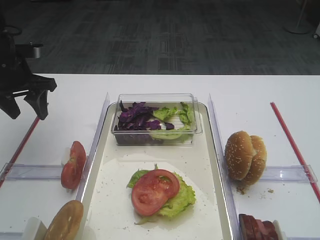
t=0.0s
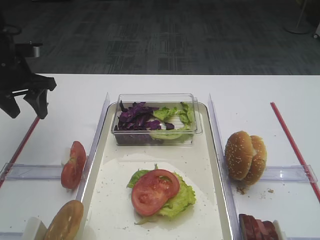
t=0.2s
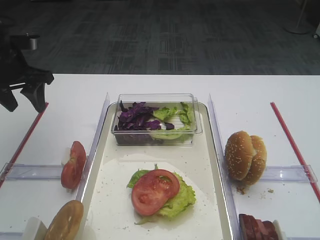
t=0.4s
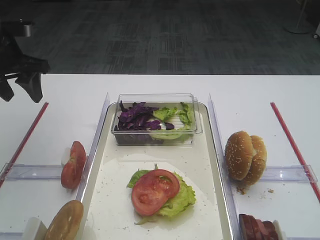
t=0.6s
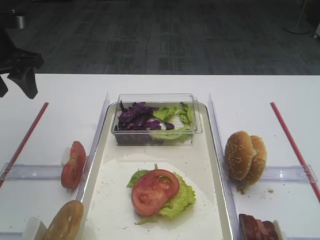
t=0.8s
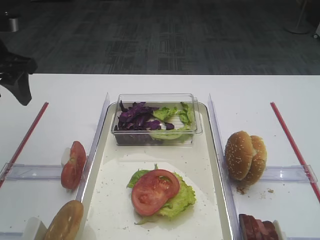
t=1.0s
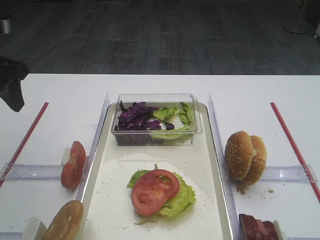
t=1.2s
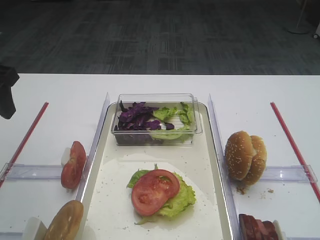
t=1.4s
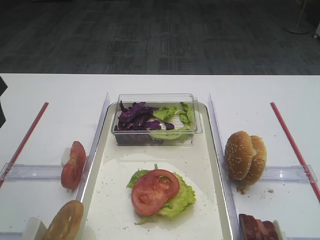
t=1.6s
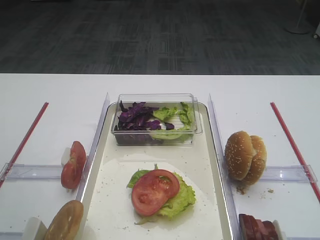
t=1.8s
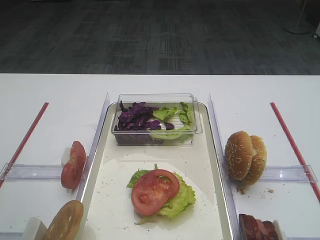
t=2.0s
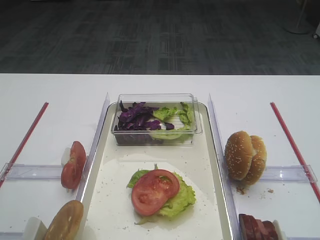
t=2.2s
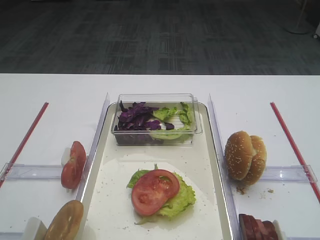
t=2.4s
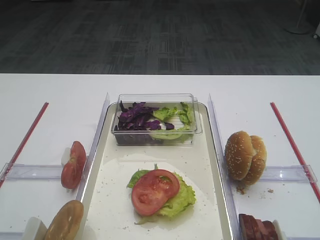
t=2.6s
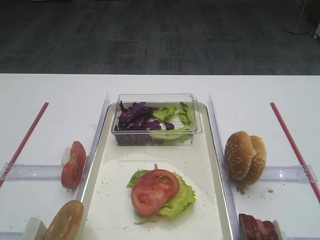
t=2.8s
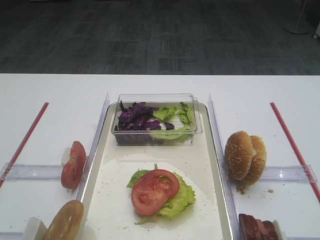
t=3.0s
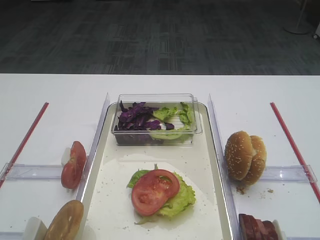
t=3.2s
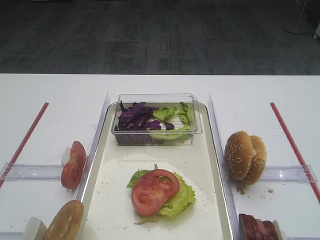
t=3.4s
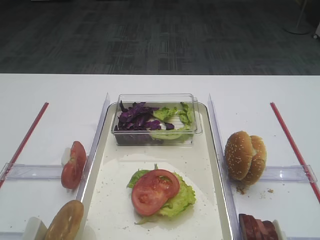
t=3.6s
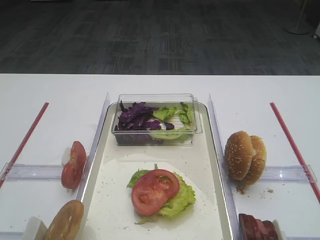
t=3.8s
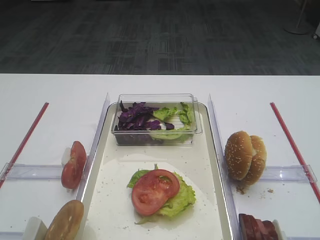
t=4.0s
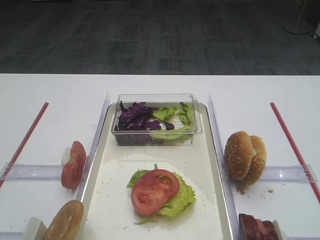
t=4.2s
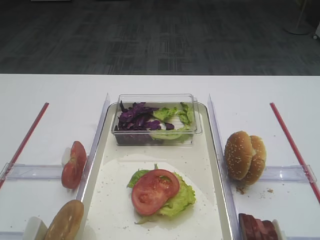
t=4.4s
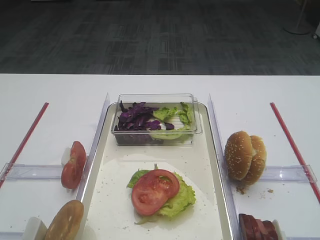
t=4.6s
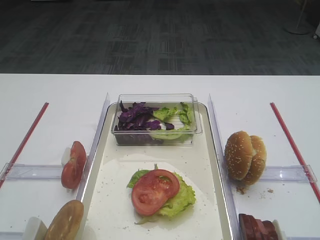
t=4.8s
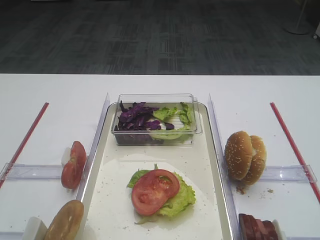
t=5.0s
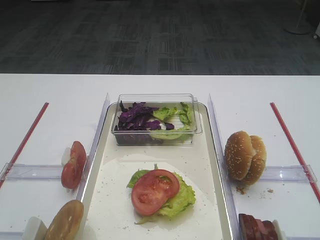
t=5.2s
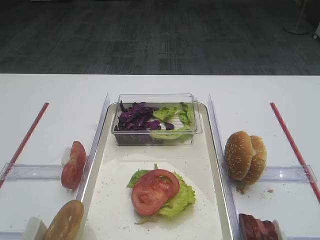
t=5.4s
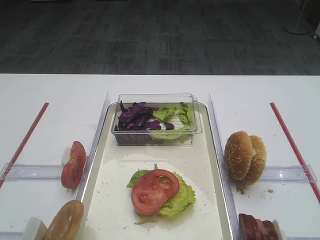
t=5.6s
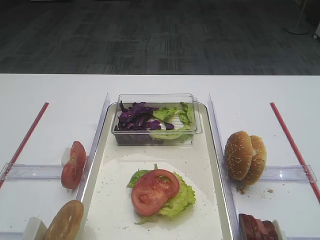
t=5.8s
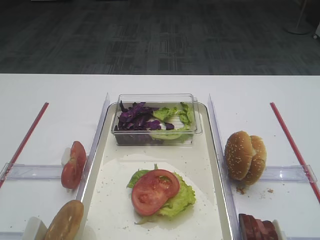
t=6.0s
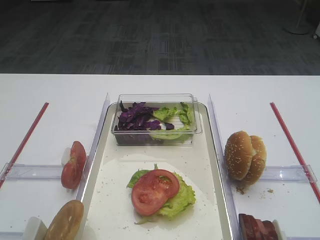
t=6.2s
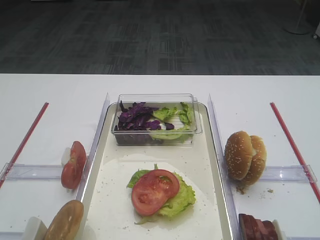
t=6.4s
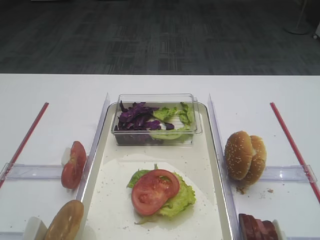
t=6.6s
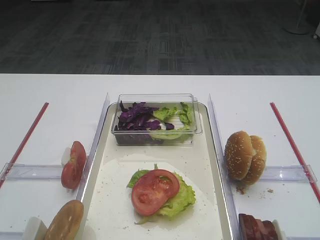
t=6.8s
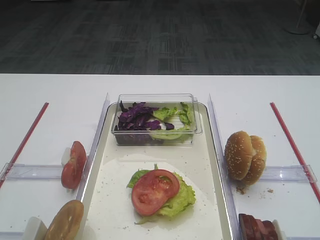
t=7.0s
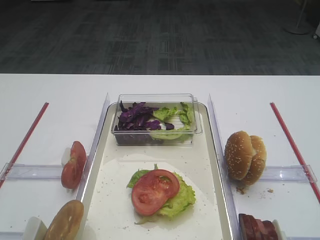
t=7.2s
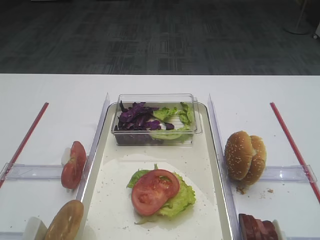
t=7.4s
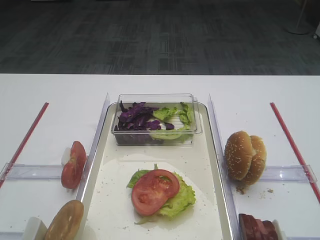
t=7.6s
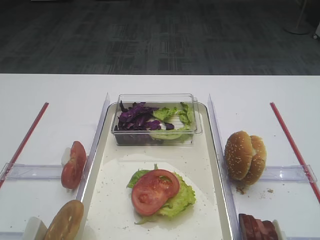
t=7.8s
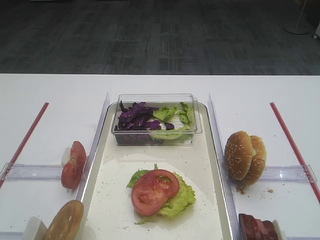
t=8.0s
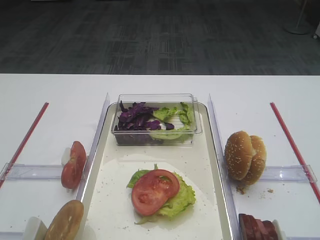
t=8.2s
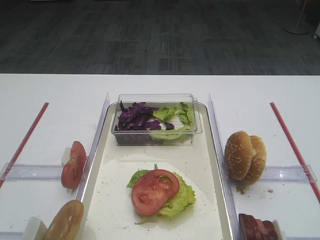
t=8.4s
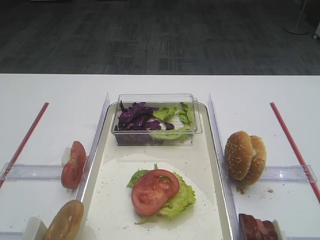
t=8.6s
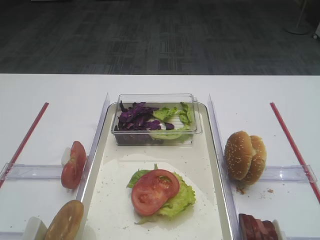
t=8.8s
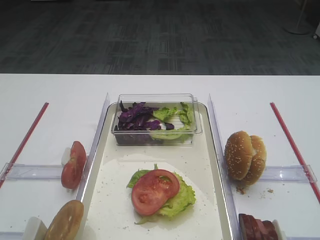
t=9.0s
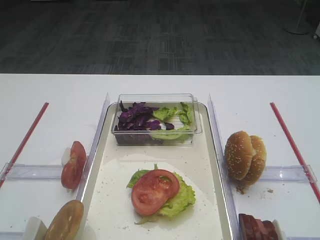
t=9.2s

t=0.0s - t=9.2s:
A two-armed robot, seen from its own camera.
t=0.0s - t=1.6s: The left gripper is displaced backward and upward by approximately 15 cm.
t=4.6s - t=9.2s: The two grippers keep their place.

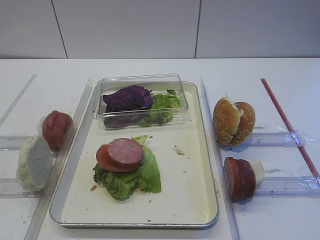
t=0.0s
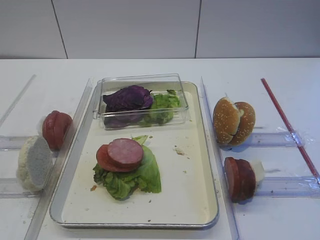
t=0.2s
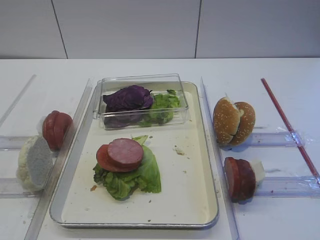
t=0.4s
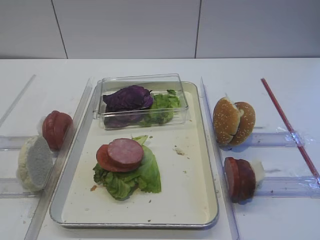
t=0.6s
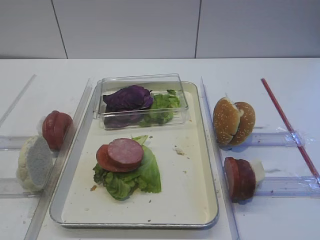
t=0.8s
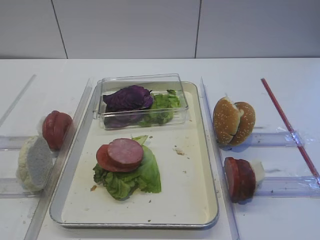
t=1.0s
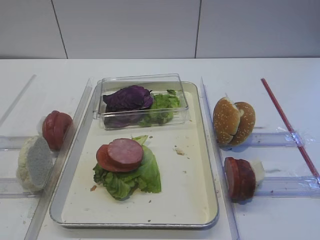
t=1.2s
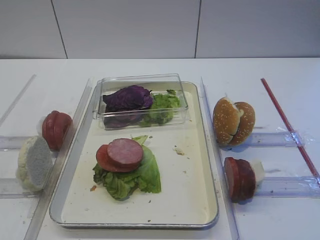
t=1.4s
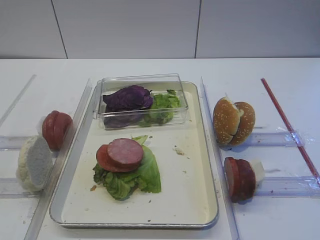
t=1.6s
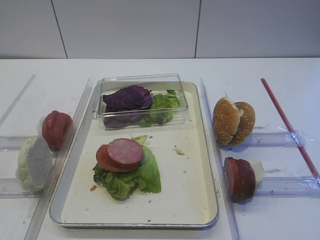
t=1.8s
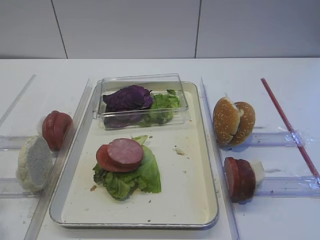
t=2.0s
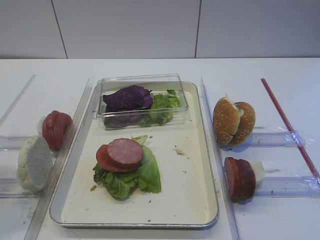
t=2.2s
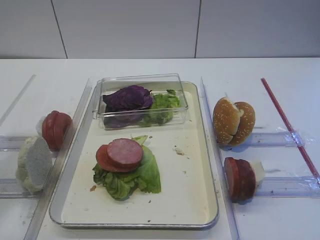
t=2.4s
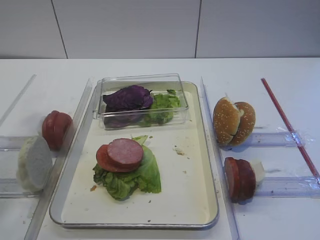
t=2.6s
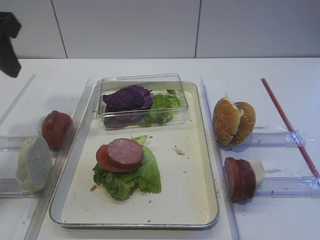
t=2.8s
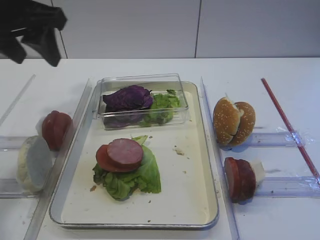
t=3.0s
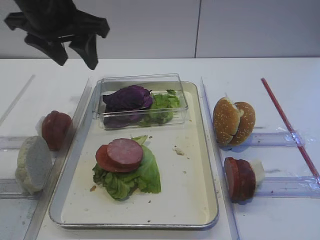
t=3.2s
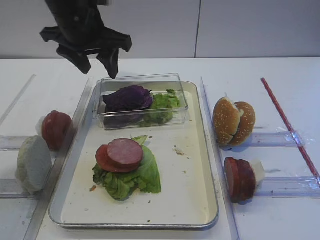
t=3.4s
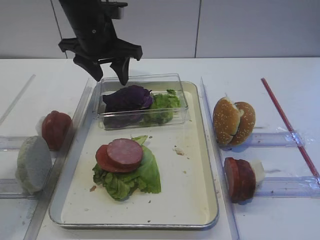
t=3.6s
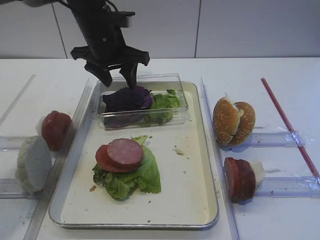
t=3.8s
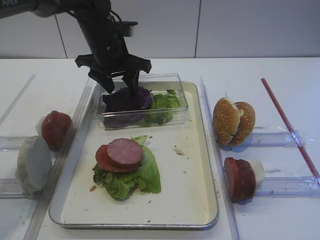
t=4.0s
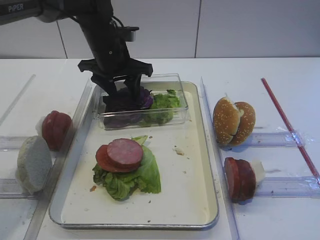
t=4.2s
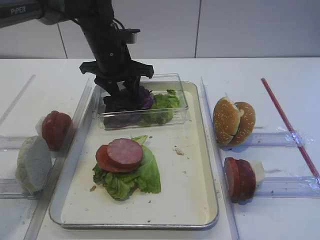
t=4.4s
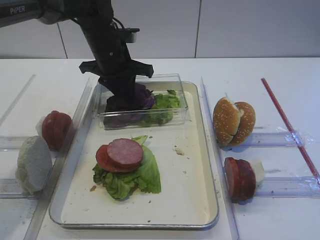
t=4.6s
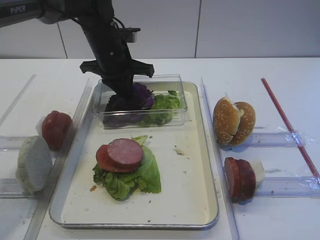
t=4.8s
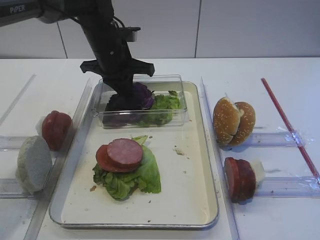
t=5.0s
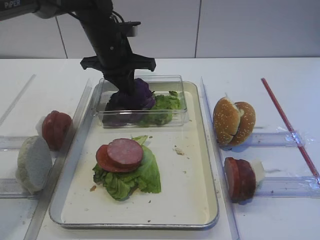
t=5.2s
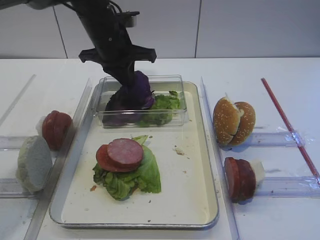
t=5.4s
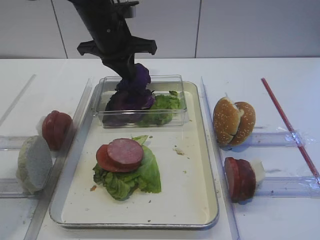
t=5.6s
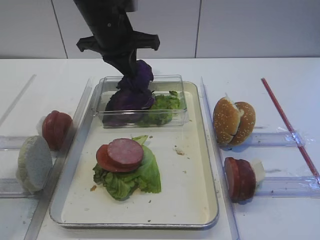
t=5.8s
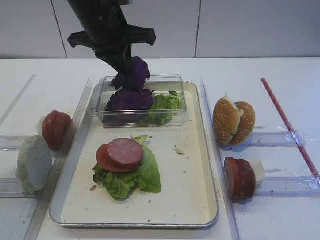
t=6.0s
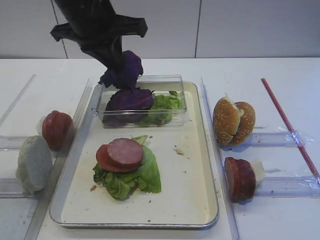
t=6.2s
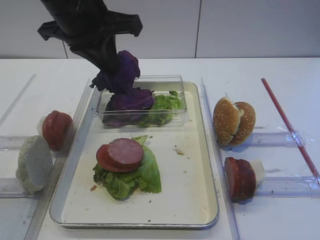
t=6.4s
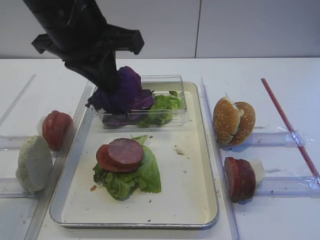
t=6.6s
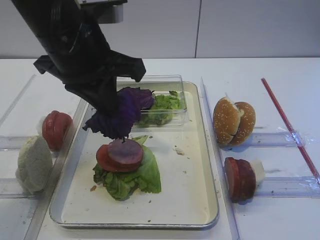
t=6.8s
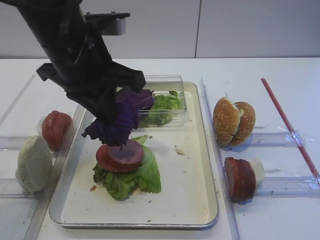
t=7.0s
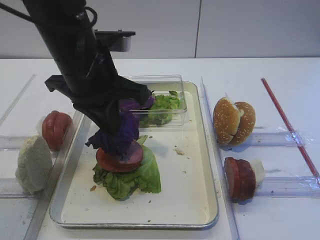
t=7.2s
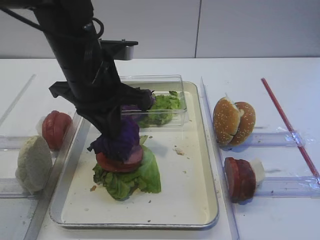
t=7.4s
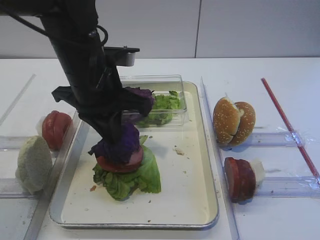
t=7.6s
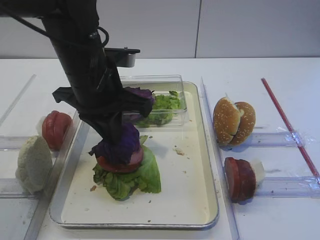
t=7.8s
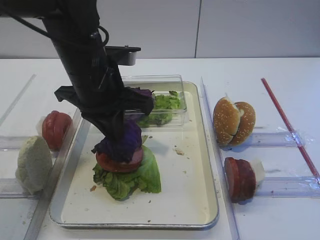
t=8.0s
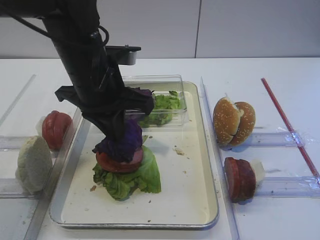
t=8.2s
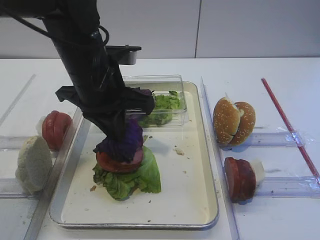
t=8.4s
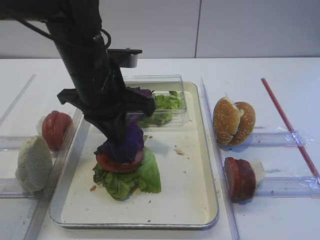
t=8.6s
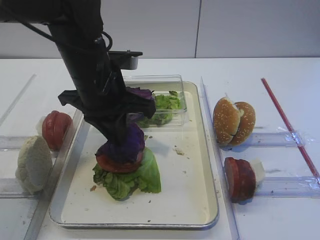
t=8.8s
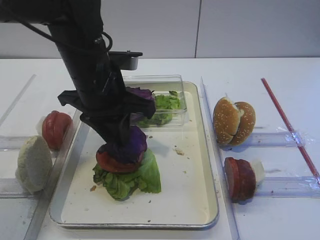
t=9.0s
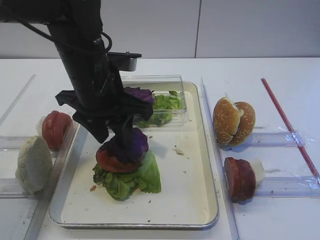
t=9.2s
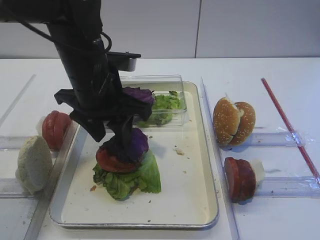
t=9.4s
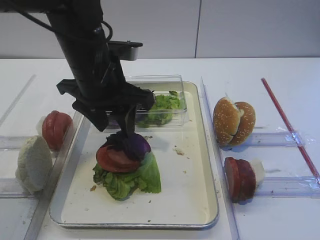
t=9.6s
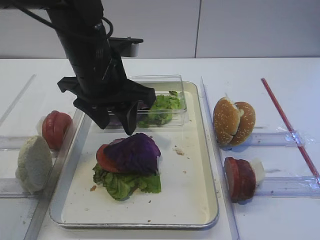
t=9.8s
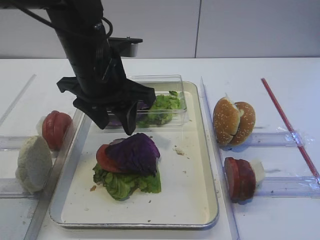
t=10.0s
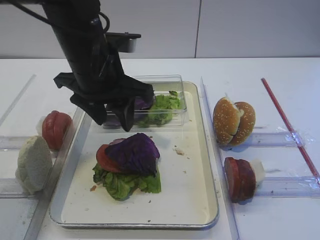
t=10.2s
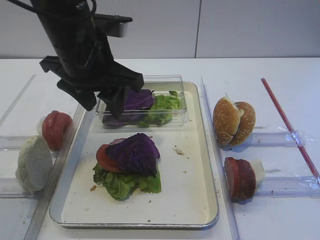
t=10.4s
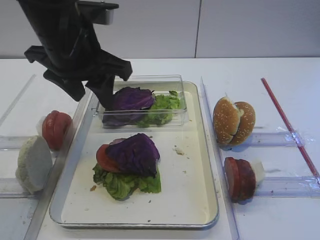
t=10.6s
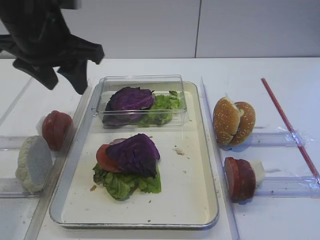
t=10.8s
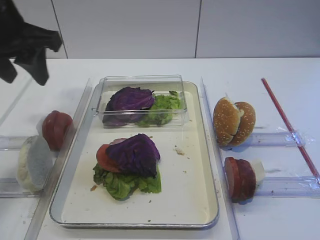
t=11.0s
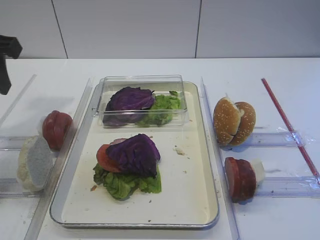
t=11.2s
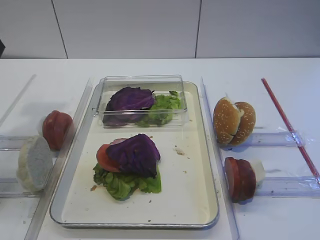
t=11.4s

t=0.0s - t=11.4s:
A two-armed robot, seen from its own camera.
Step, t=0.0s - t=6.0s: Pick up the purple cabbage with the left gripper.
Step, t=6.2s - t=10.0s: Place the purple cabbage on the cutlet with the left gripper.
t=1.4s - t=2.8s: The left gripper moves forward and upward, approximately 25 cm, and opens its fingers.
t=2.8s - t=4.2s: The left gripper heads forward, to the right and downward, covering roughly 30 cm.
t=4.2s - t=5.6s: The left gripper closes.
t=5.6s - t=7.2s: The left gripper moves backward, approximately 15 cm.
t=7.2s - t=8.6s: There are only small adjustments of the grippers.
t=8.6s - t=10.0s: The left gripper opens up.
t=10.0s - t=11.4s: The left gripper heads to the left and upward, covering about 20 cm.

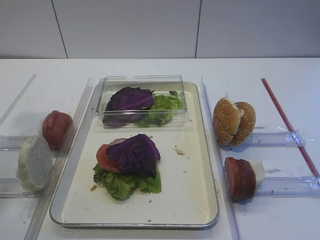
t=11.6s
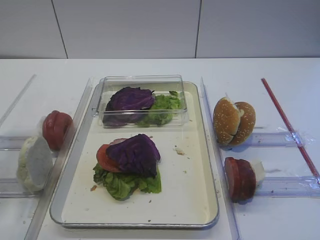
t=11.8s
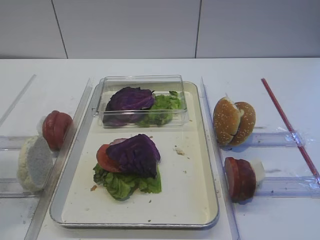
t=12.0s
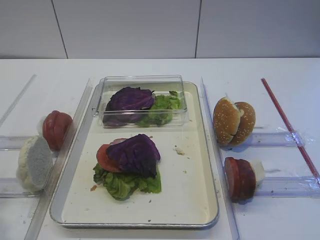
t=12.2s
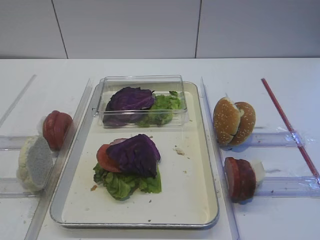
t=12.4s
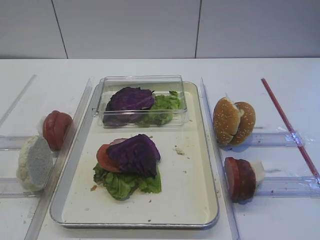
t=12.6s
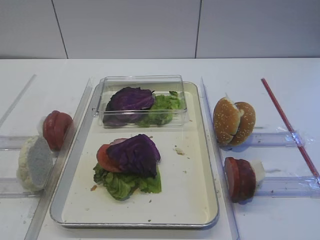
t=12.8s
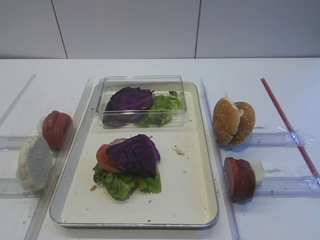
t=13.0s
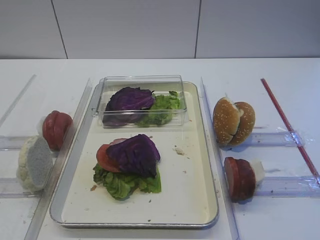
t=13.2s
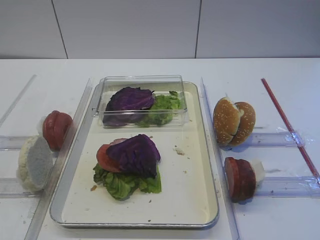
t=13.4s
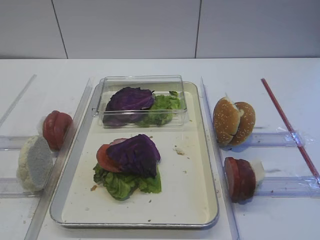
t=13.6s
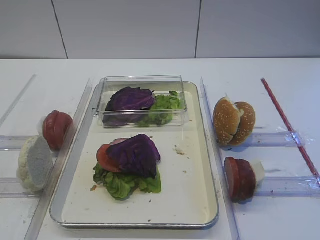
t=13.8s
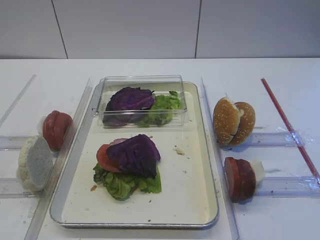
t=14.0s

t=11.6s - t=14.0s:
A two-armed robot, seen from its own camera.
t=11.6s - t=12.8s: The left gripper moves backward and downward, approximately 25 cm.
t=12.8s - t=14.0s: Both grippers stay about where they are.
